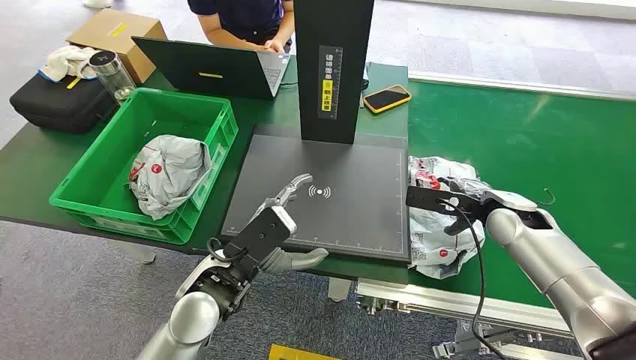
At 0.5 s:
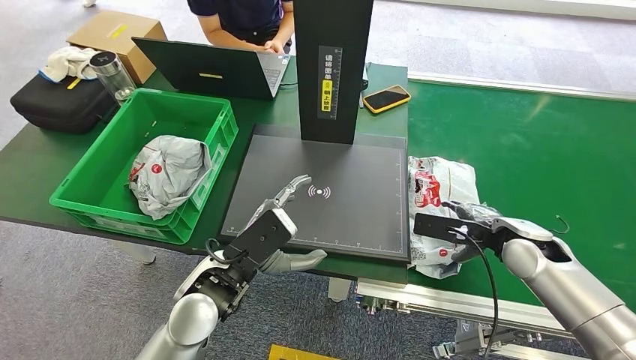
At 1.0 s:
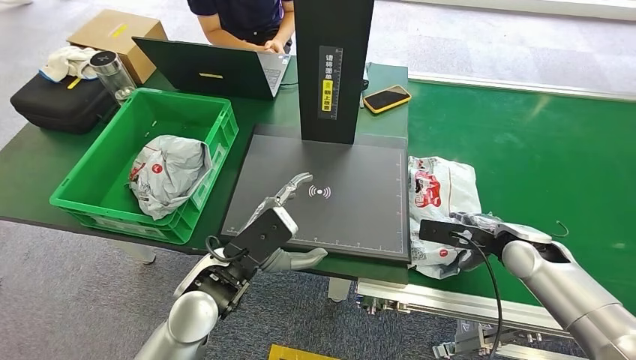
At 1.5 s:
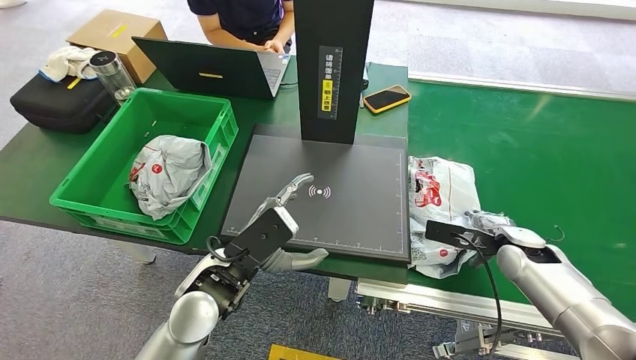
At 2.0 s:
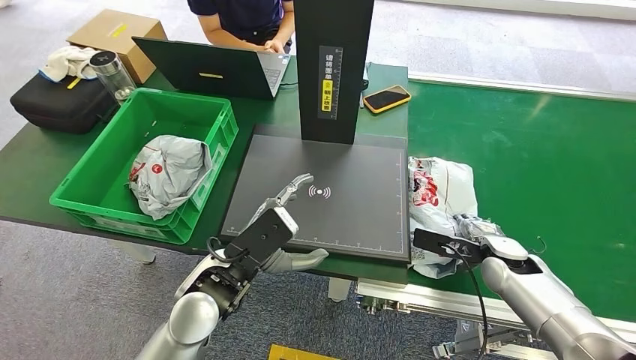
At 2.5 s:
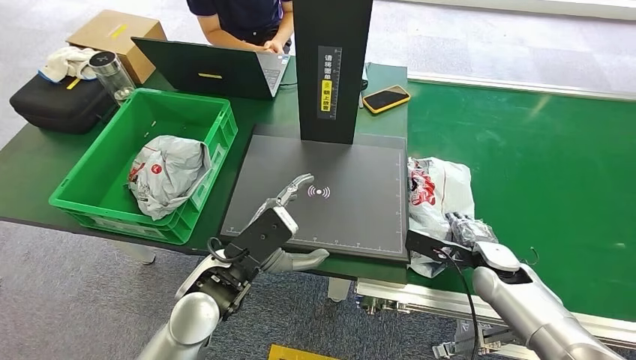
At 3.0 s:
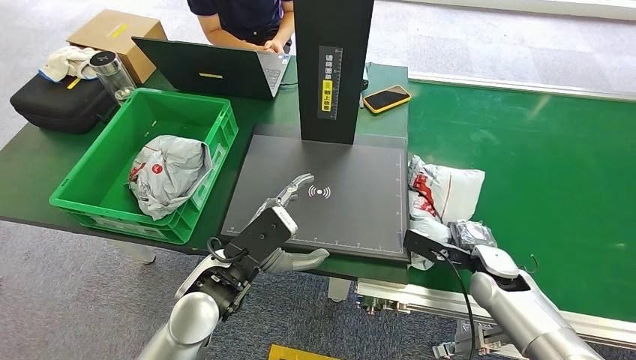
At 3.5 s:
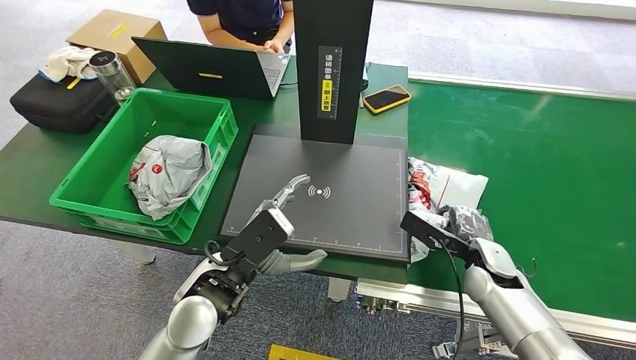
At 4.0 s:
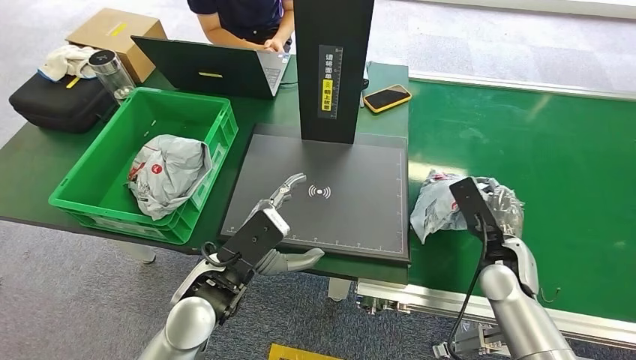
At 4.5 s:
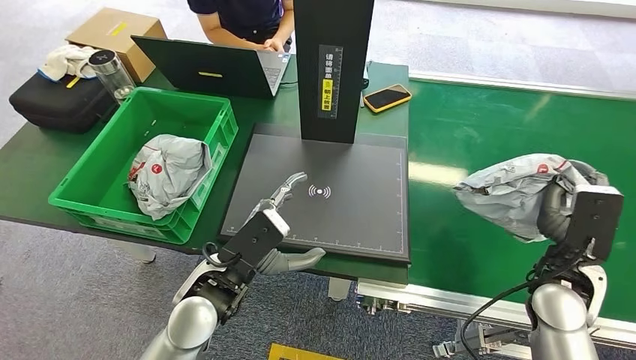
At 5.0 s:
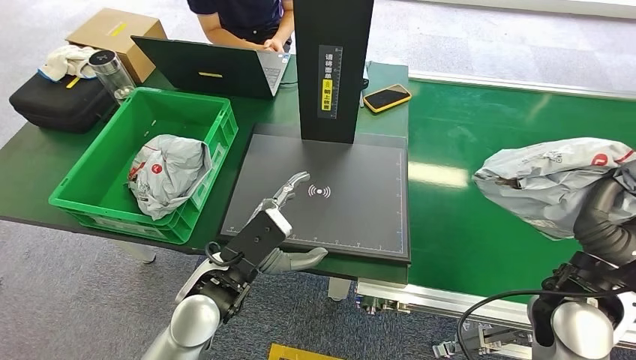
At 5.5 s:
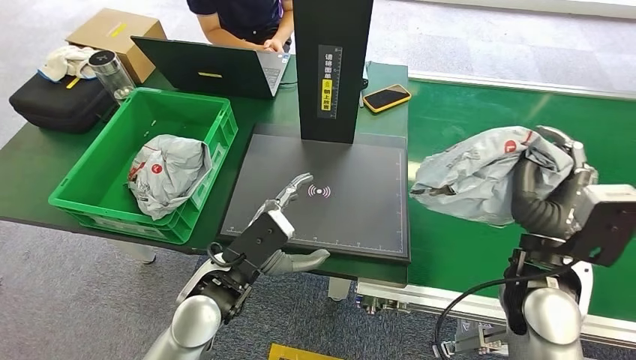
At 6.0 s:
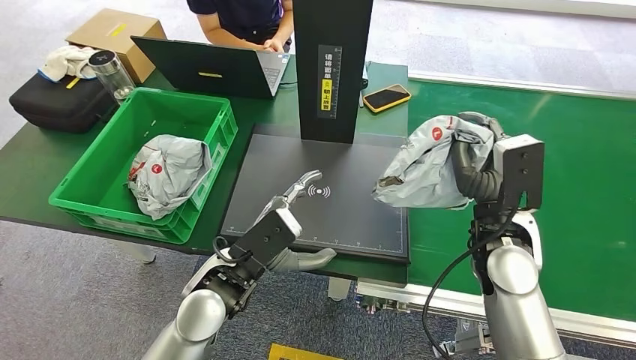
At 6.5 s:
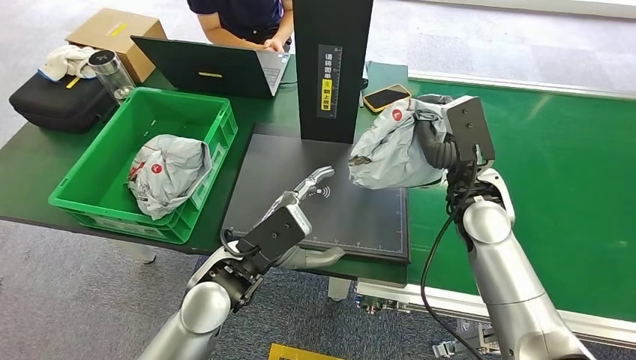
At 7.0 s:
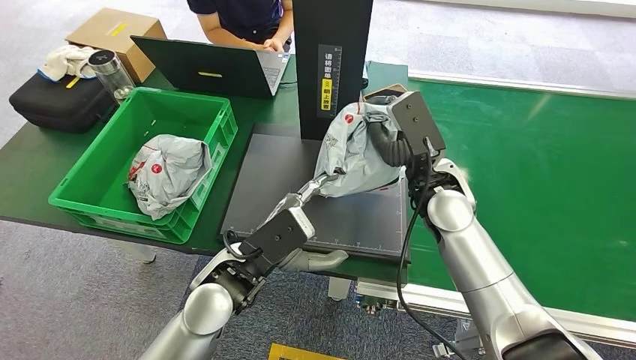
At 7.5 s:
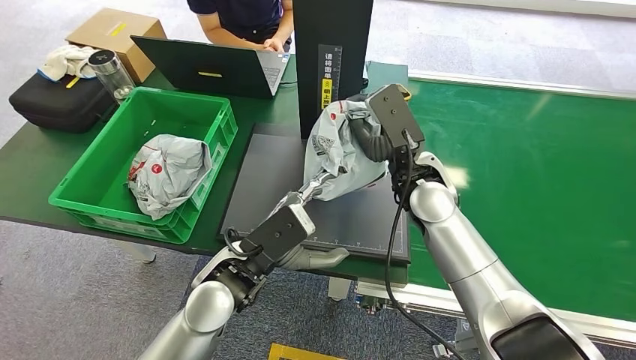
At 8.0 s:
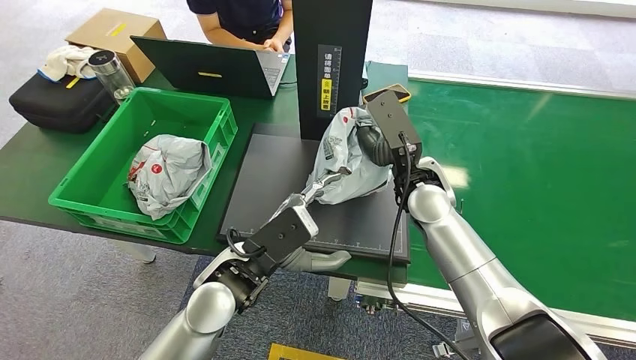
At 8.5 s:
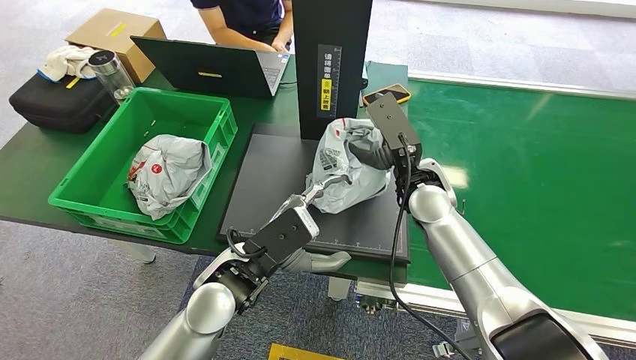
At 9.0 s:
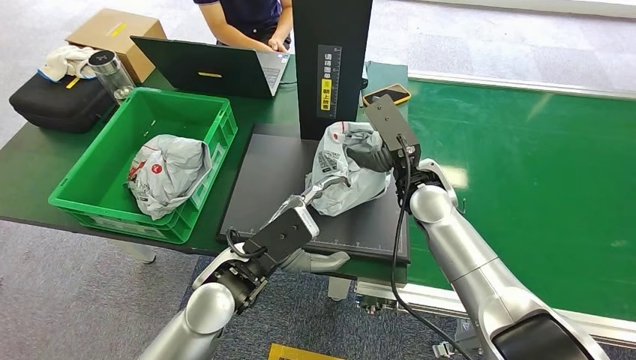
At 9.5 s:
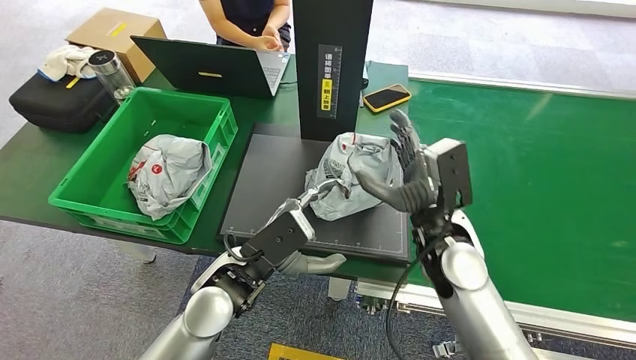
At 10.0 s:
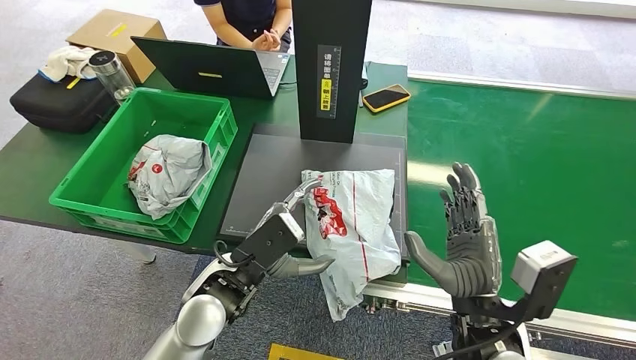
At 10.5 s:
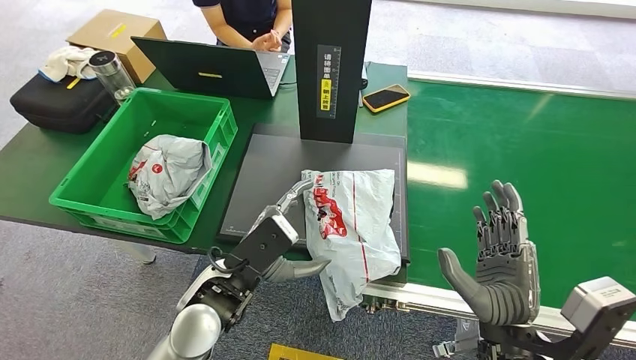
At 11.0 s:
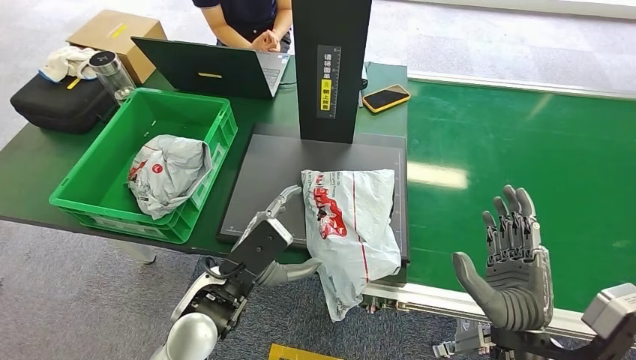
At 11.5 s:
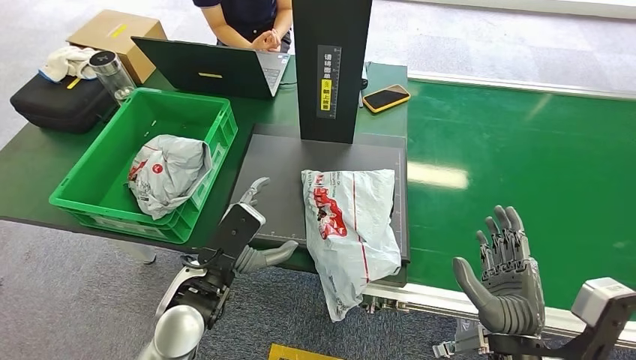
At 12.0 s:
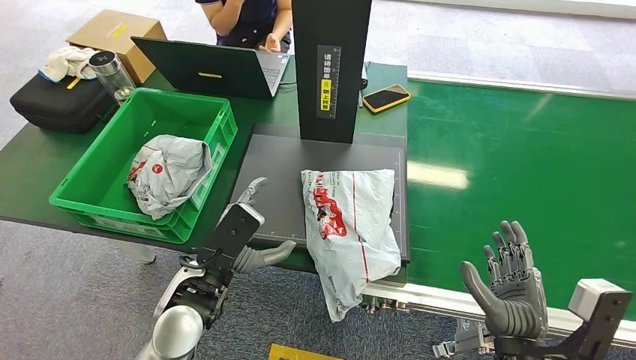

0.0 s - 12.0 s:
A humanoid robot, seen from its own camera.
Step, 0.0 s - 4.0 s: Pick up the package from the conveyor belt.
Step, 4.5 s - 10.0 s: Place the package onto the inbound machine.
2.0 s - 4.0 s: The right hand moves about 5 cm.
4.0 s - 6.0 s: The right hand goes roughly 15 cm upward and to the left.
6.0 s - 8.0 s: The right hand goes some 15 cm to the left and forward.
8.0 s - 10.0 s: The right hand moves backward, about 20 cm.
10.0 s - 12.0 s: The right hand is displaced backward by roughly 5 cm.

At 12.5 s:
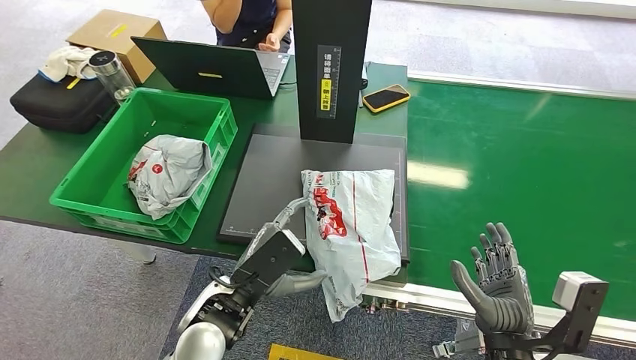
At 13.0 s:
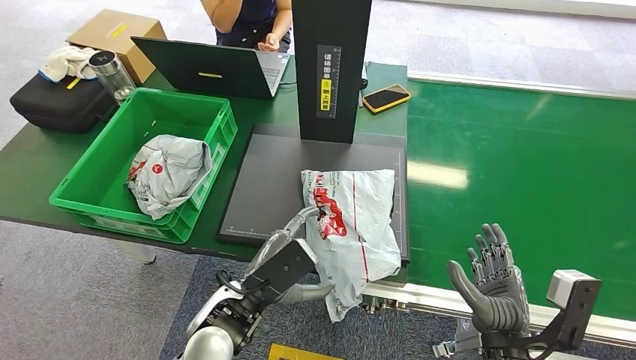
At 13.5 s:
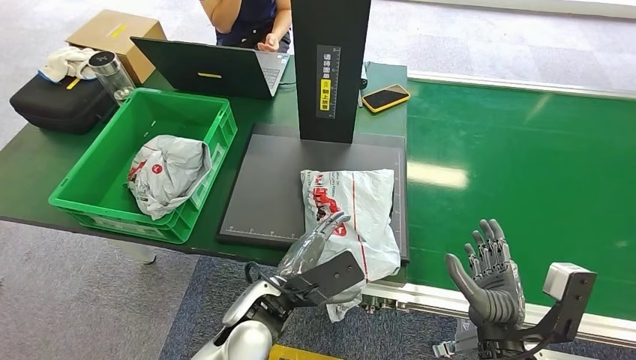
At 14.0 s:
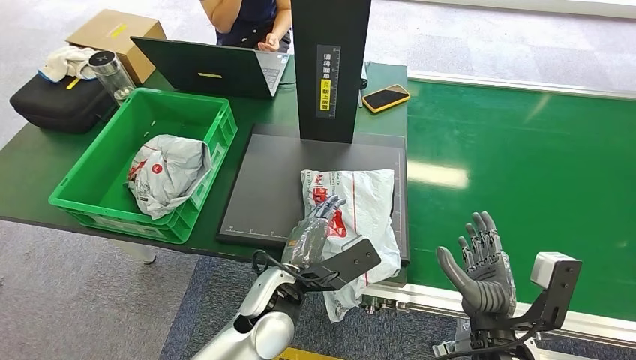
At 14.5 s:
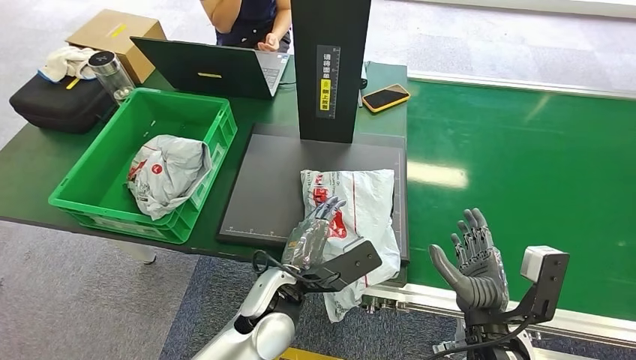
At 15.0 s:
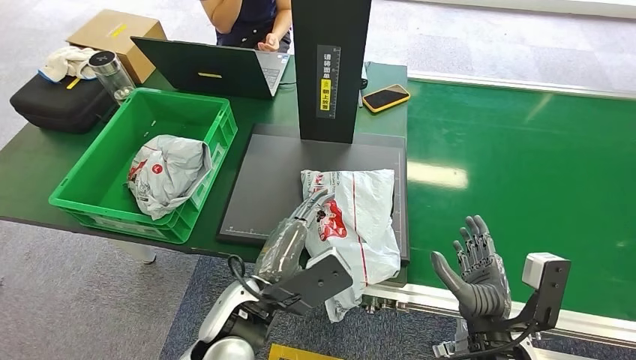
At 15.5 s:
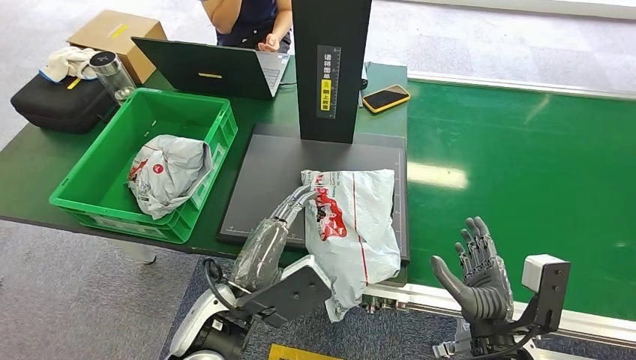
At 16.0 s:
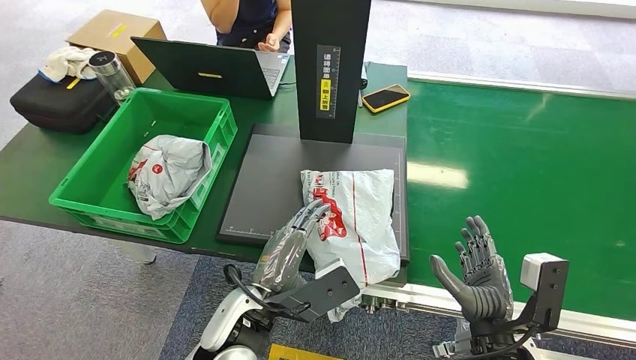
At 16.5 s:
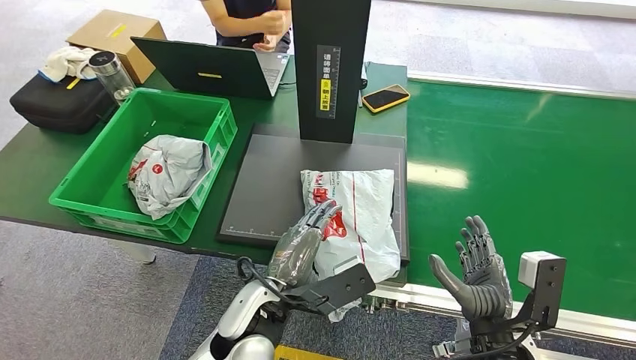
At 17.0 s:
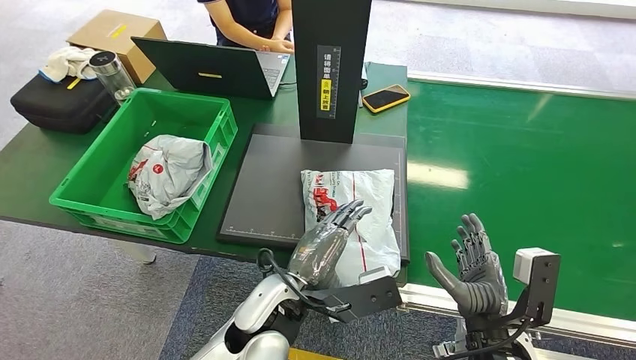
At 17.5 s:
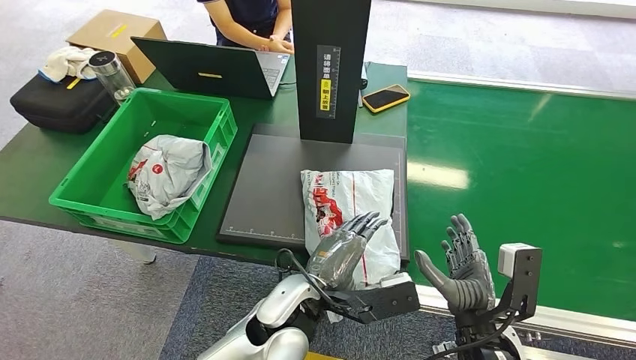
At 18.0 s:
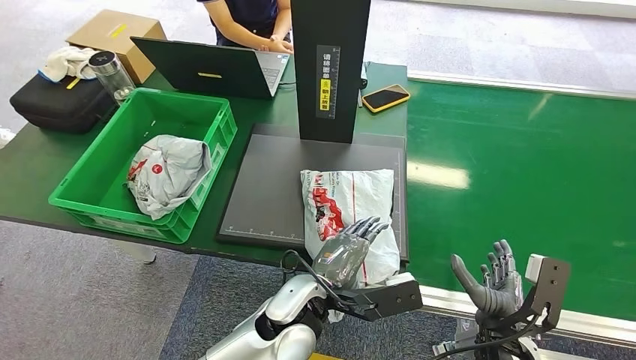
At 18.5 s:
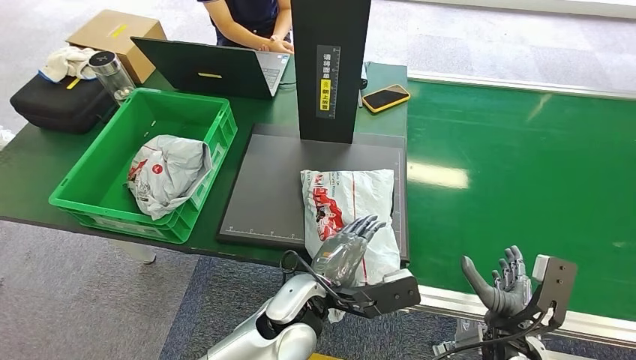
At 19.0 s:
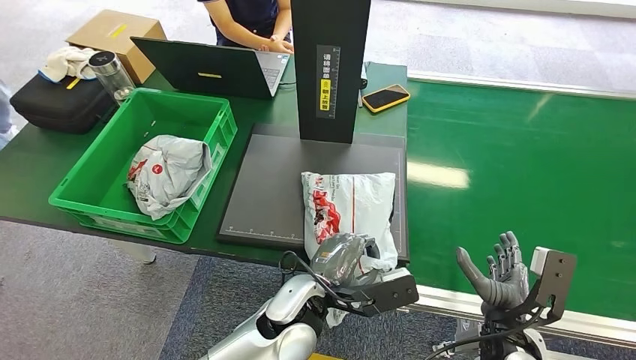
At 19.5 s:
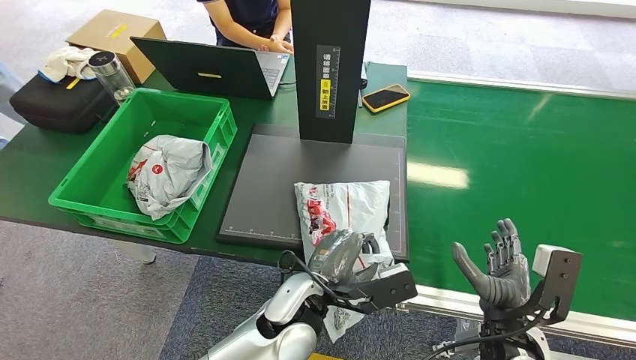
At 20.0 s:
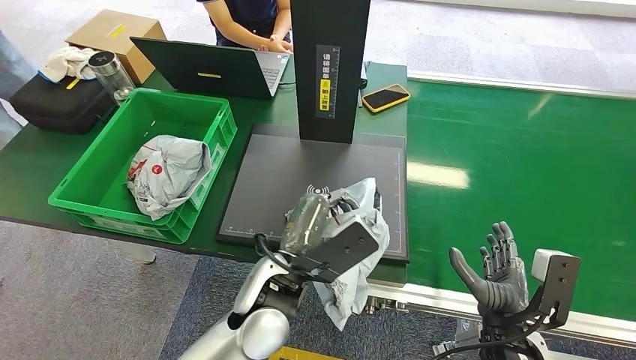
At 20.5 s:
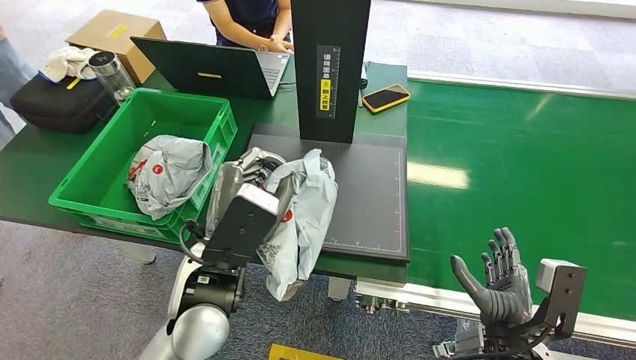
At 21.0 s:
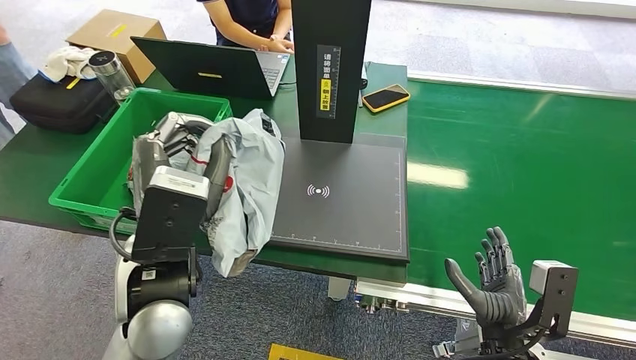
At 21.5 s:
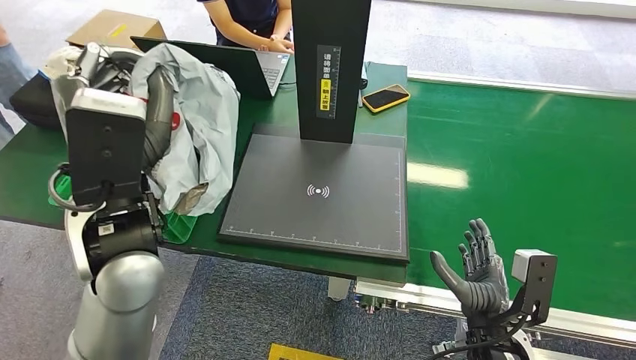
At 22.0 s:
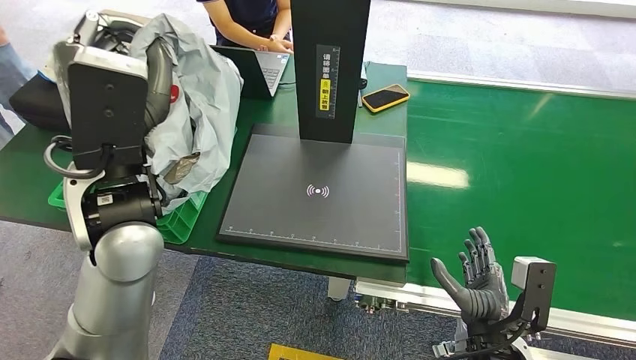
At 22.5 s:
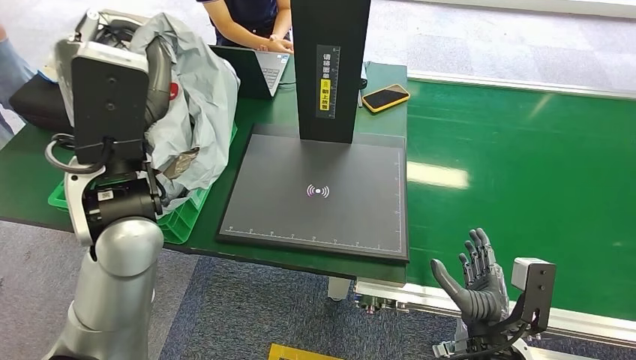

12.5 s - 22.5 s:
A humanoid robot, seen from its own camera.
Step, 12.5 s - 20.5 s: Pick up the package from the inbound machine.
12.5 s - 14.5 s: The left hand heads to the right, covering roughly 5 cm.
16.5 s - 18.5 s: The right hand ends up some 5 cm from where it was.
18.5 s - 20.5 s: The left hand travels upward and to the left by about 10 cm.
